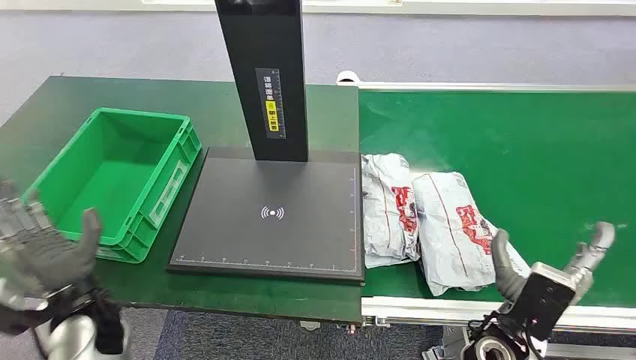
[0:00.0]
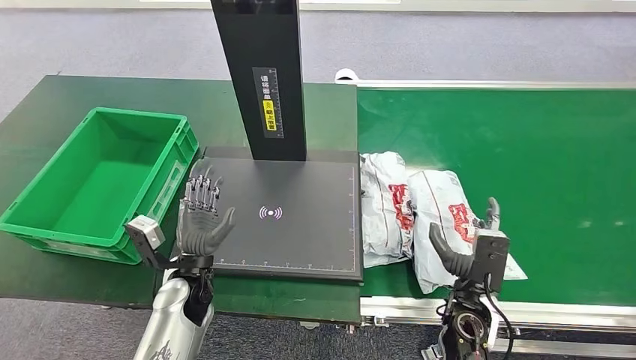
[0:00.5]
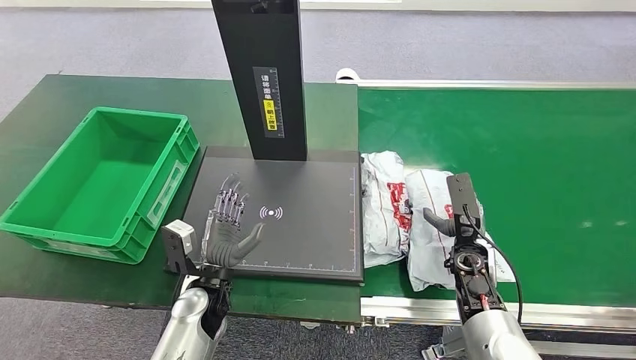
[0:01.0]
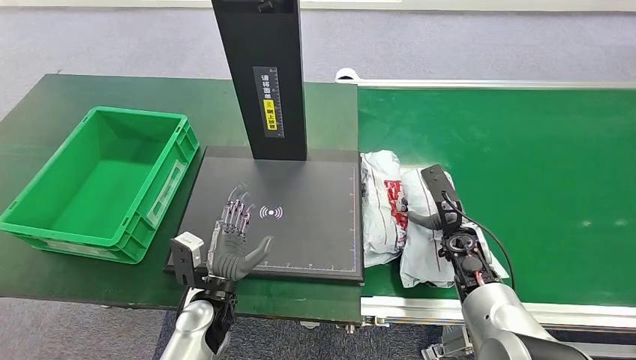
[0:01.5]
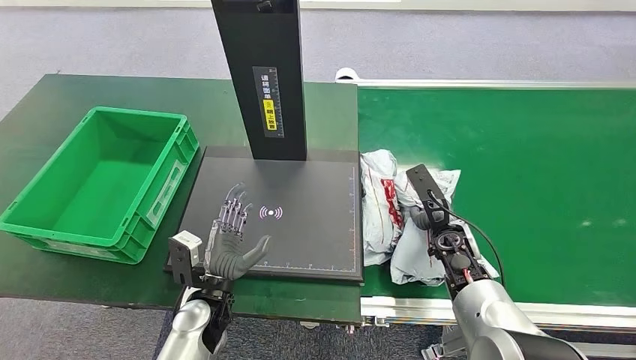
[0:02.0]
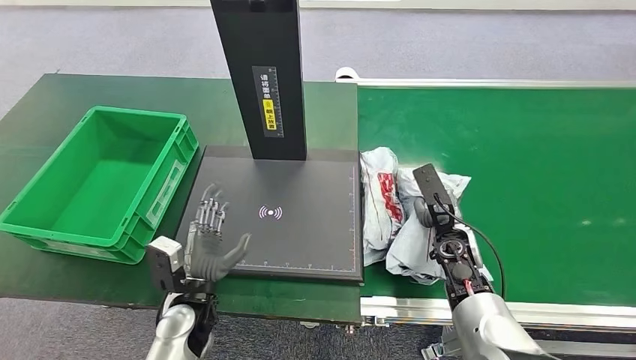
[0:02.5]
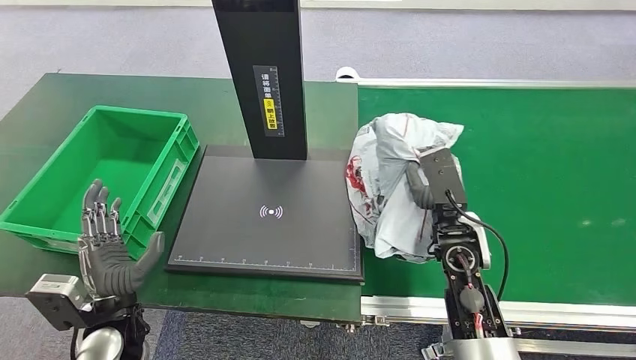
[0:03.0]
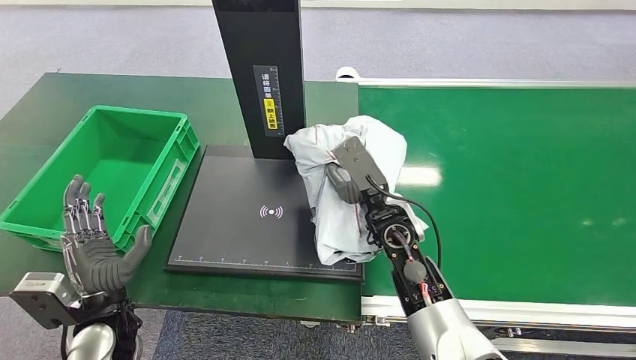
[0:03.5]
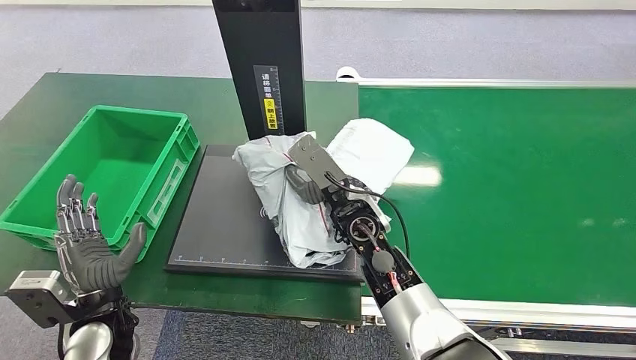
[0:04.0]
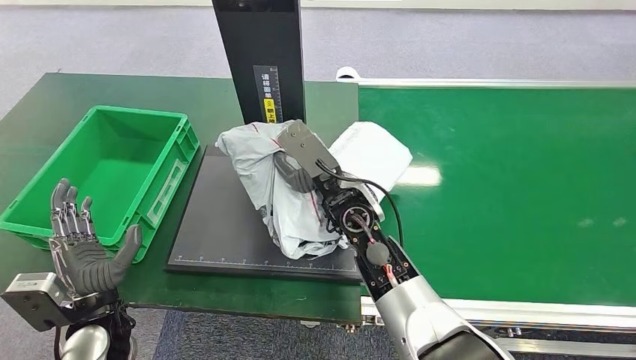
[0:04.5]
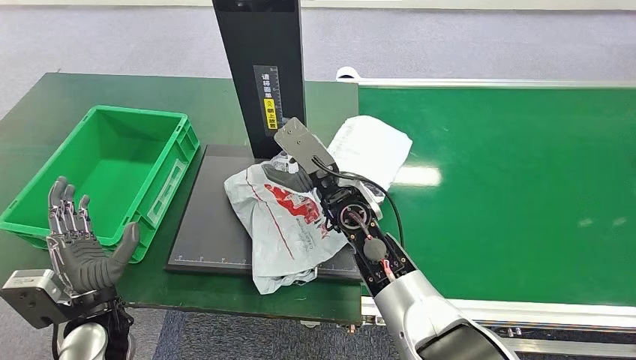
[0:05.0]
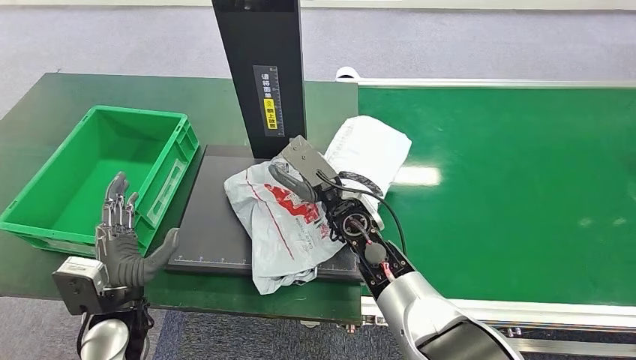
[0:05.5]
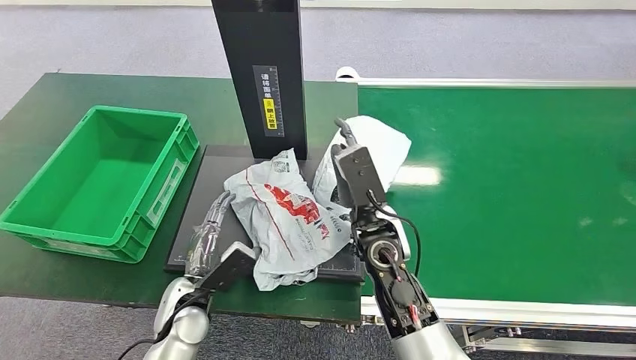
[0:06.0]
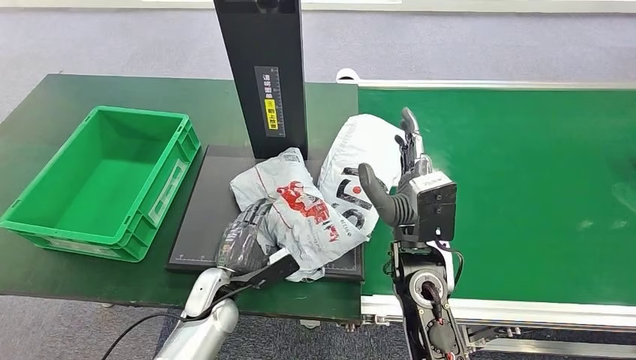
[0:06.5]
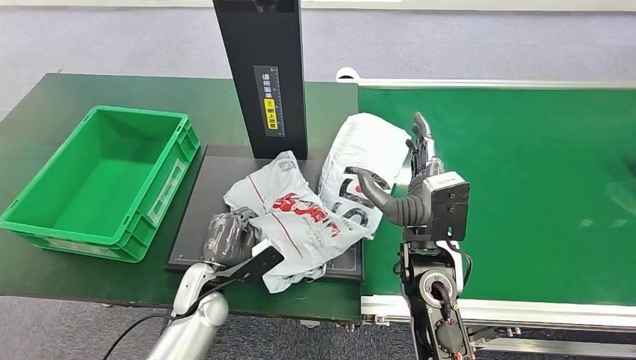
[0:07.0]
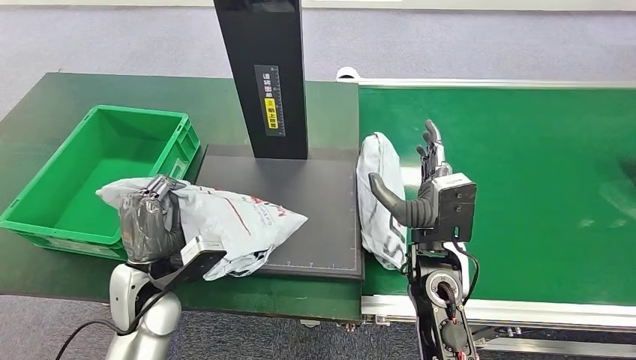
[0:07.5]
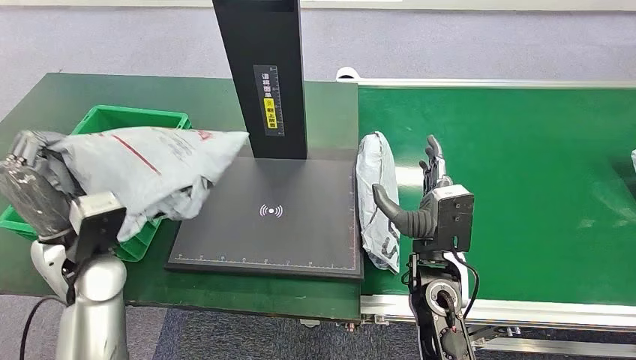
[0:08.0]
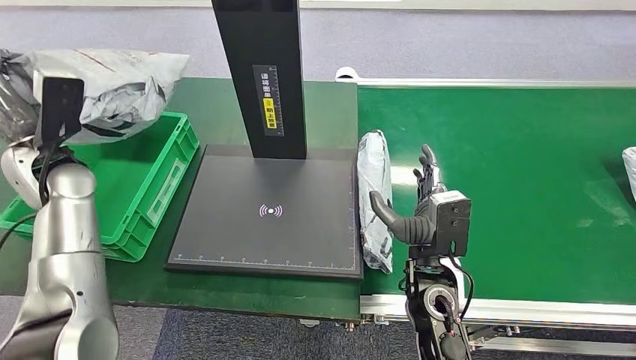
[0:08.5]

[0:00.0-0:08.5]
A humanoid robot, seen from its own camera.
Step, 0:00.0 to 0:02.5: Pick up the package from the conveyor belt.
Step, 0:03.0 to 0:05.0: Place the package onto the inbound machine.
Step, 0:05.5 to 0:07.0: Pick up the package from the inbound machine.
Step, 0:07.5 to 0:08.5: Place the package into the parcel locker.

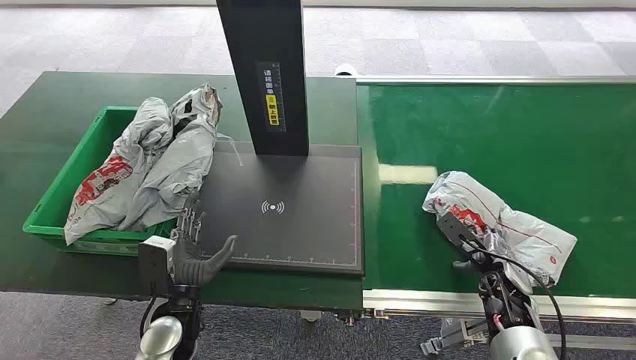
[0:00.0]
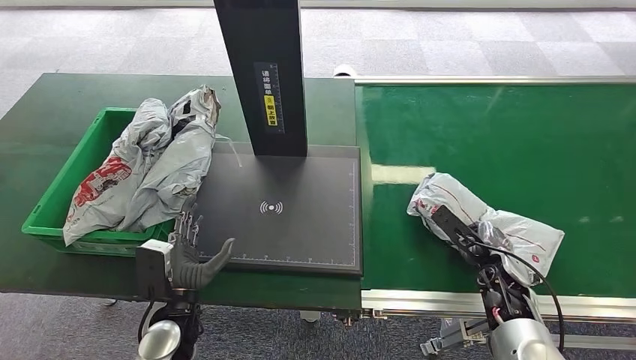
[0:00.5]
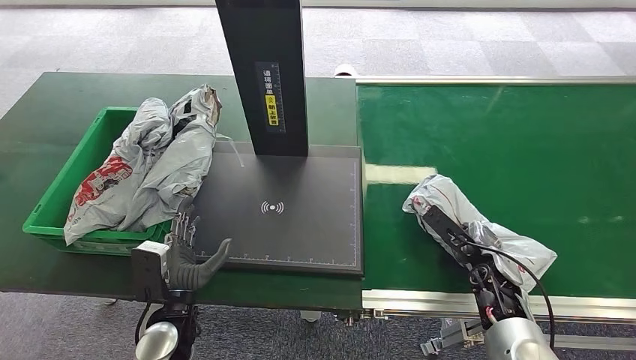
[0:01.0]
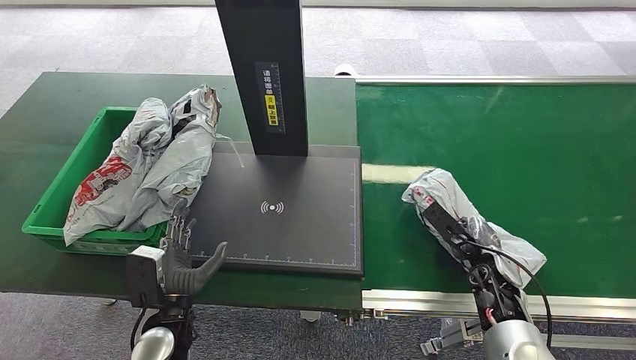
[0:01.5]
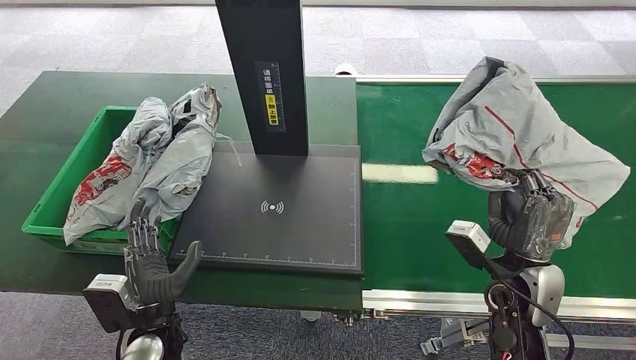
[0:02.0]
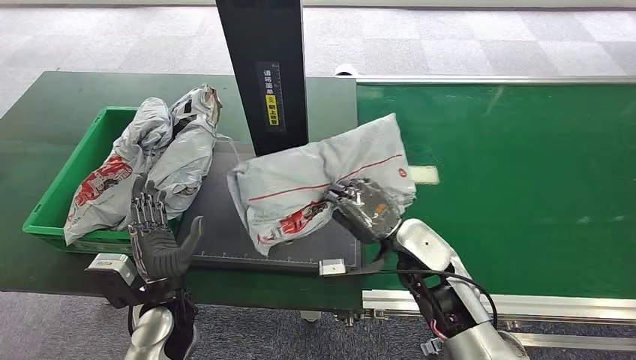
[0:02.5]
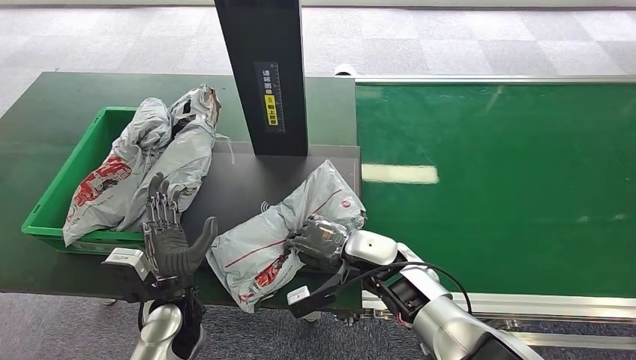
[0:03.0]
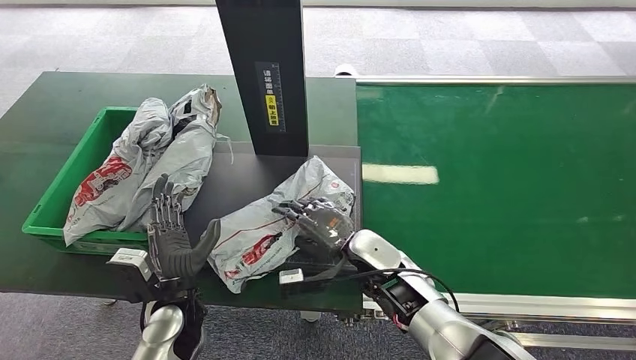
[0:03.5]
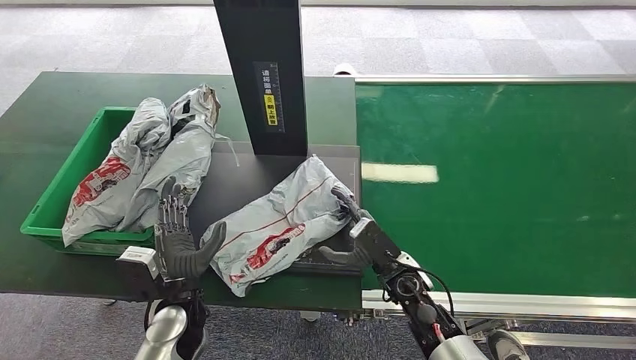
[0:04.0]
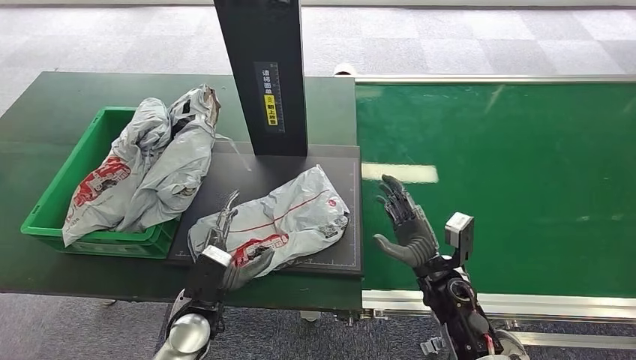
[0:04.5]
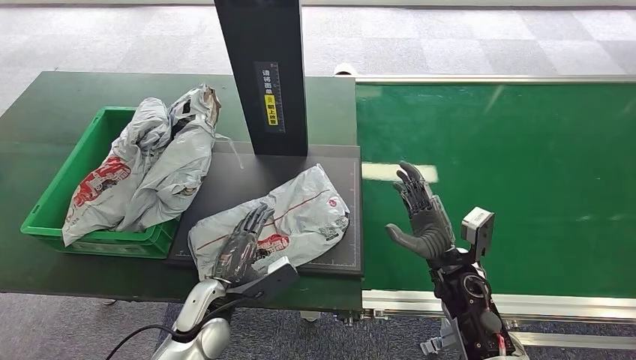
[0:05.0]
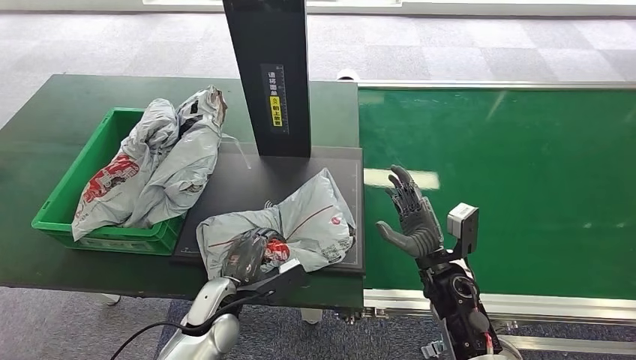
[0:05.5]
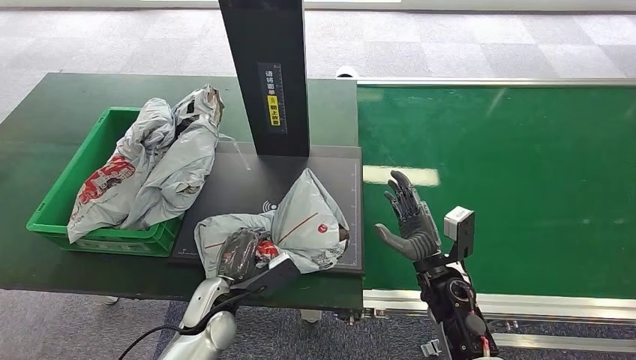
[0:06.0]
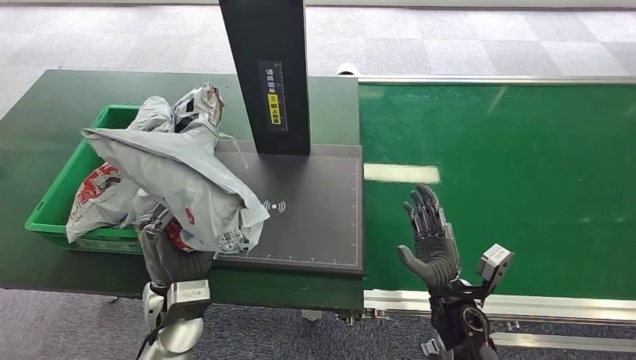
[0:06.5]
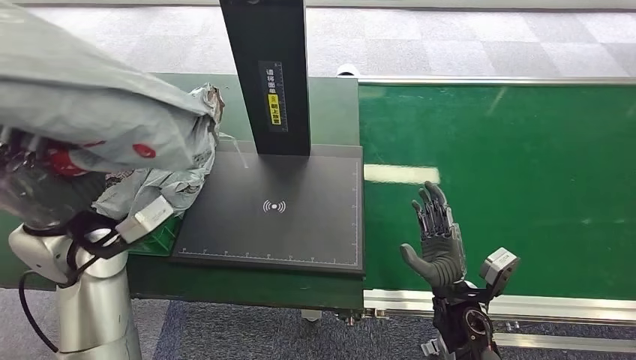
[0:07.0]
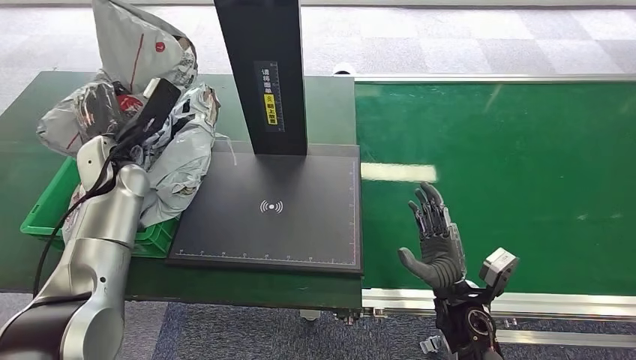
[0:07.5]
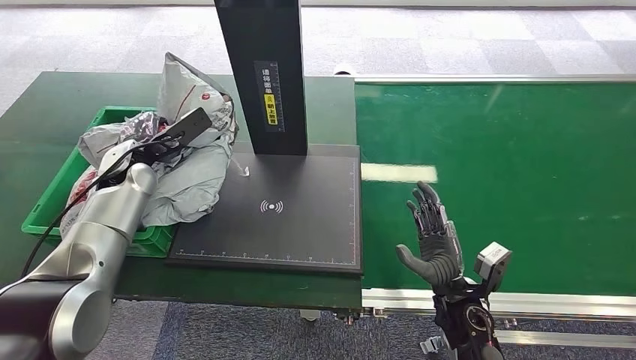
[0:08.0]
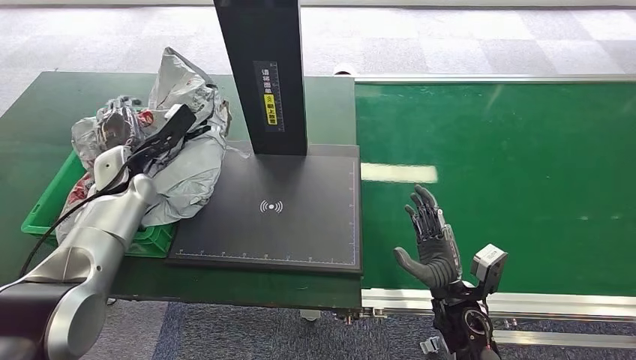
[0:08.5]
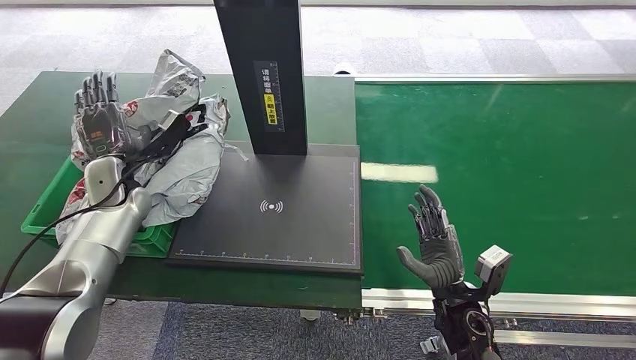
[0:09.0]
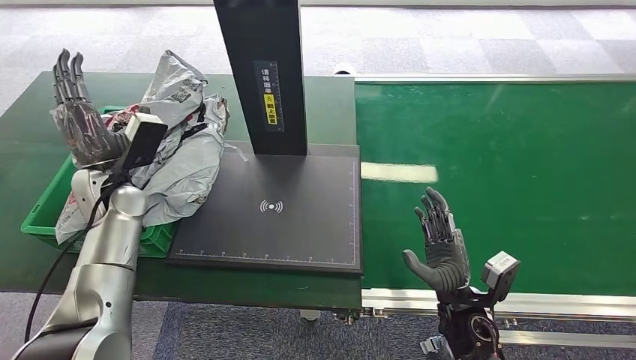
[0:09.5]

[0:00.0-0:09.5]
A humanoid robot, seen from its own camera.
Step, 0:00.0 to 0:02.0: Pick up the package from the conveyor belt.
Step, 0:02.5 to 0:04.0: Place the package onto the inbound machine.
Step, 0:04.5 to 0:06.5: Pick up the package from the inbound machine.
Step, 0:07.0 to 0:09.5: Place the package into the parcel locker.
